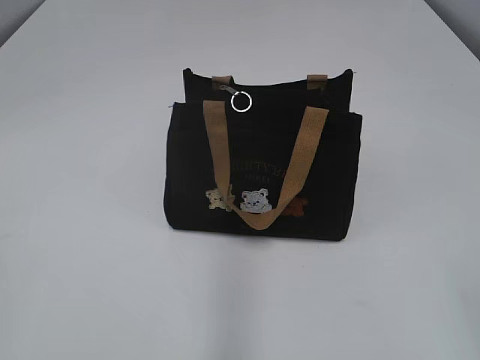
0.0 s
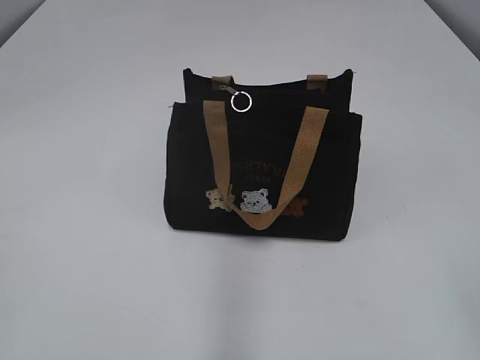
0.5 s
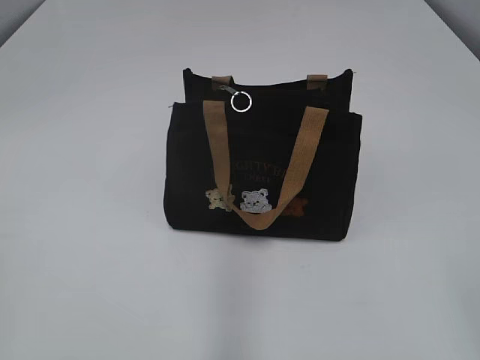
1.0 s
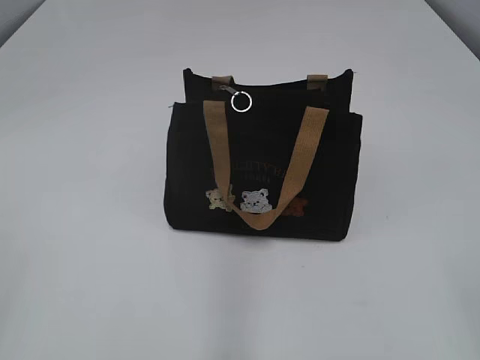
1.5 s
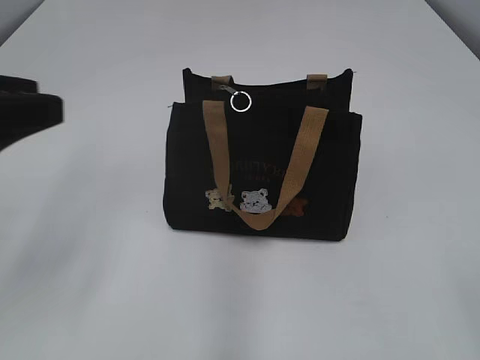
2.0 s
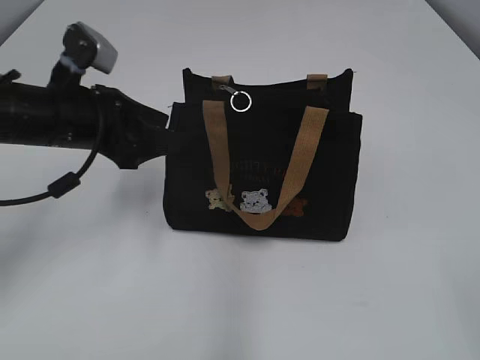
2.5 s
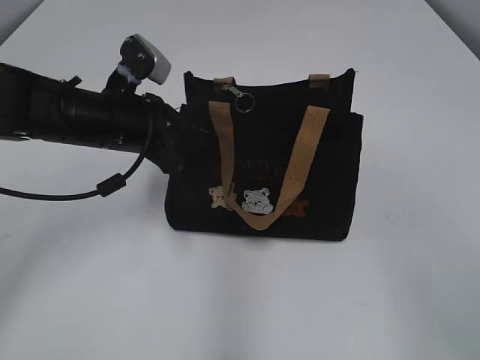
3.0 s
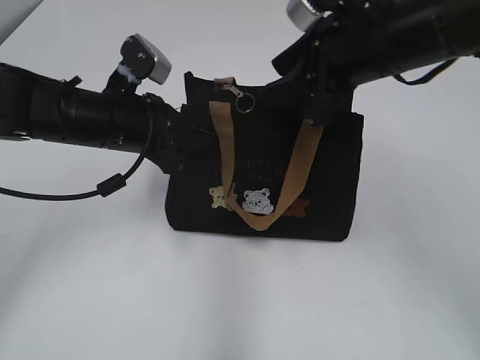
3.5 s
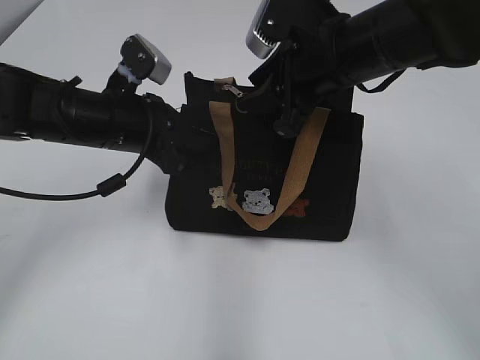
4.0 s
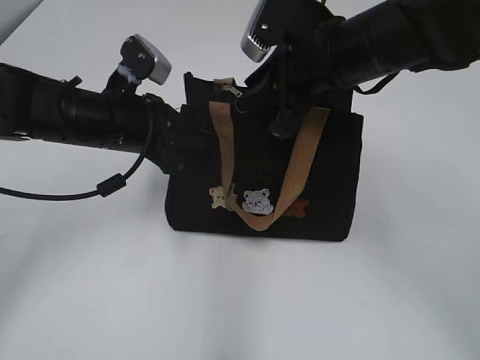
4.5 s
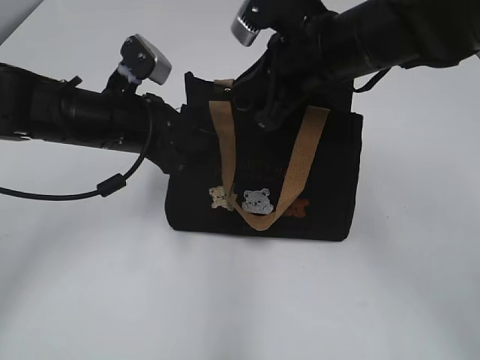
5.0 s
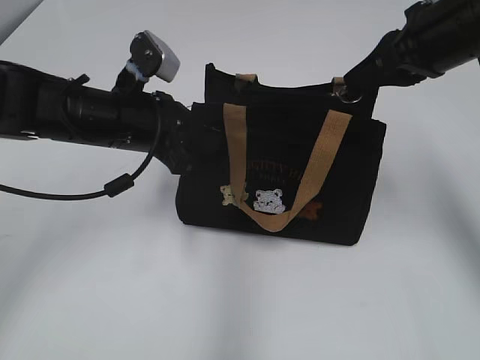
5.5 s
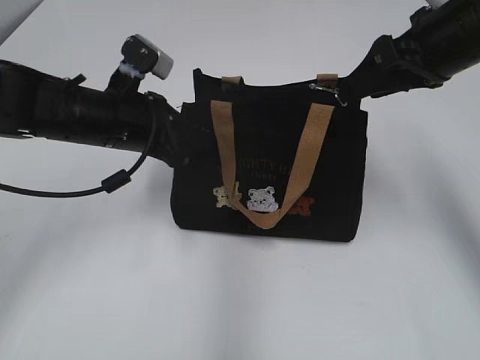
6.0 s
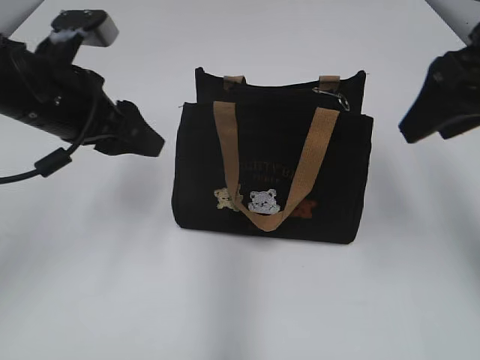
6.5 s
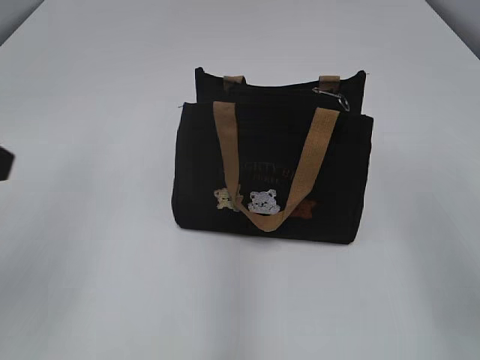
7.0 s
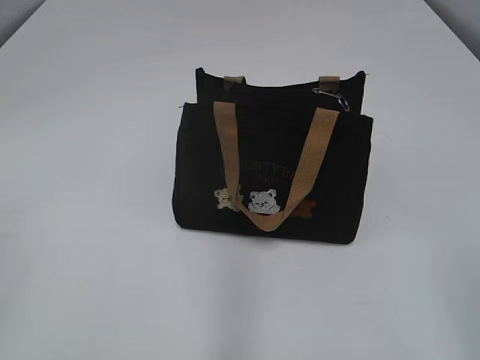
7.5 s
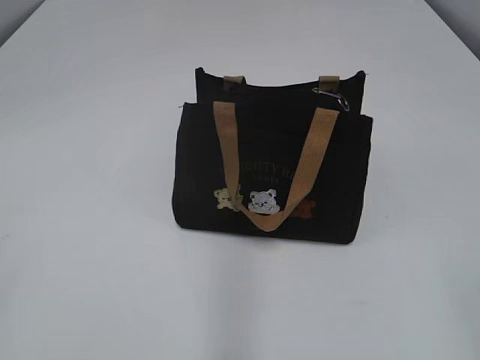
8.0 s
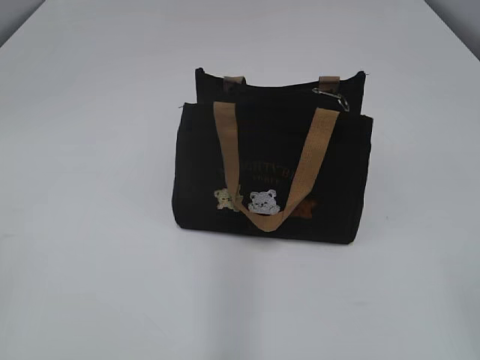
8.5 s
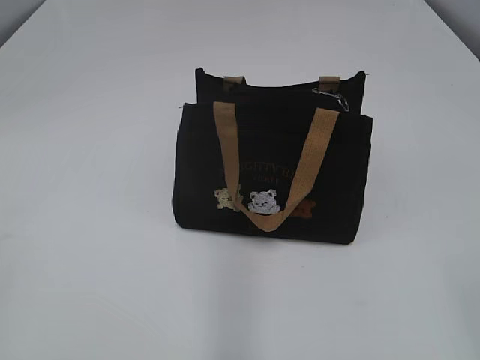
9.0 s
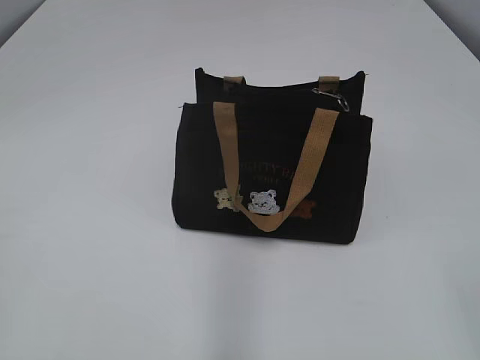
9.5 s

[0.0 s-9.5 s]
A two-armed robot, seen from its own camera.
Step, 0.0 to 5.5 s: Pull open the zipper with your right hand.
2.0 to 4.0 s: The right gripper shifts approximately 40 cm forward and to the left; the left gripper moves forward, downward and to the right, some 25 cm, and closes.
4.0 to 5.5 s: The right gripper goes about 10 cm to the right, and closes its fingers.
5.5 to 7.5 s: The left gripper is displaced backward, to the left and upward by roughly 35 cm, and opens up, while the right gripper goes about 30 cm backward, and opens.

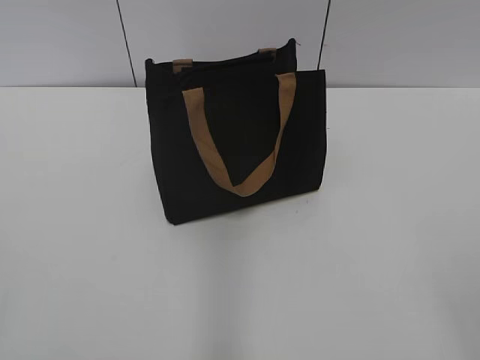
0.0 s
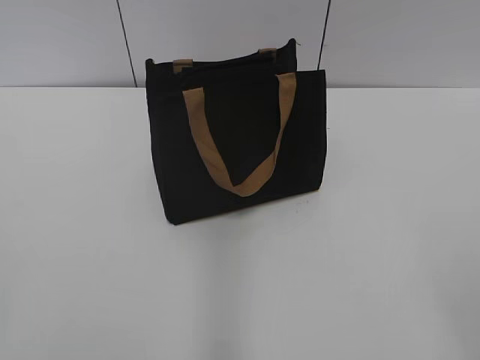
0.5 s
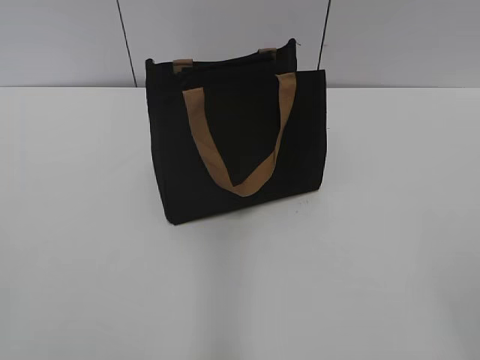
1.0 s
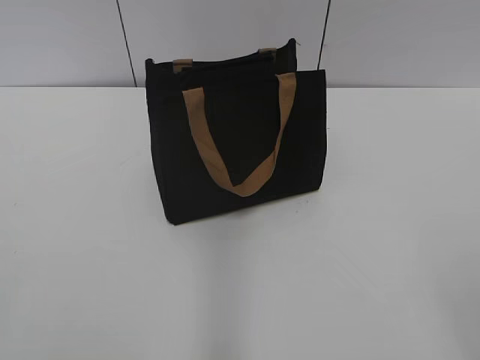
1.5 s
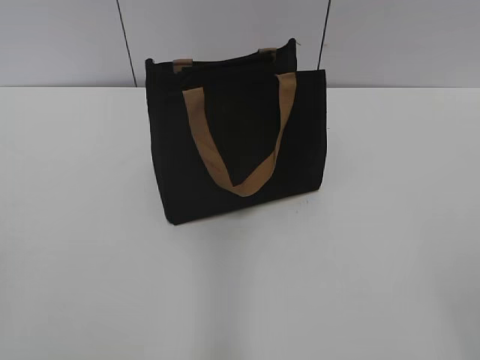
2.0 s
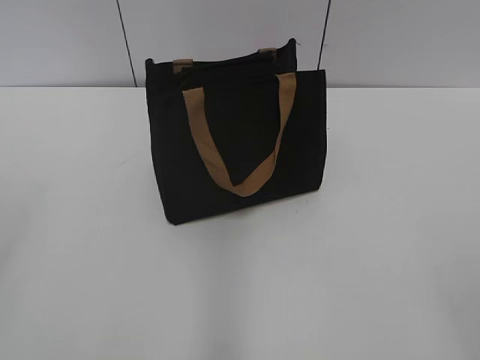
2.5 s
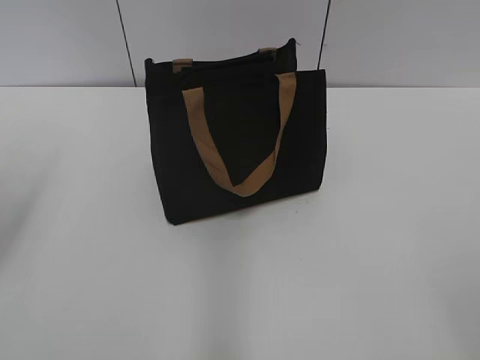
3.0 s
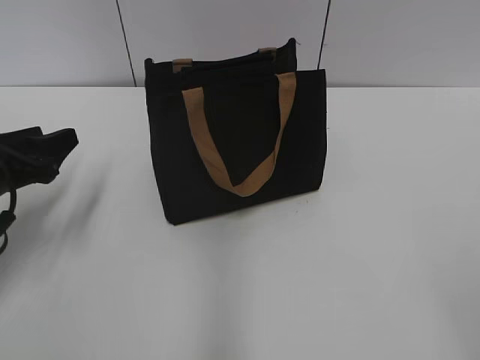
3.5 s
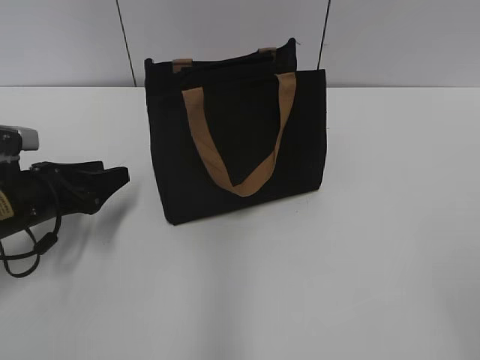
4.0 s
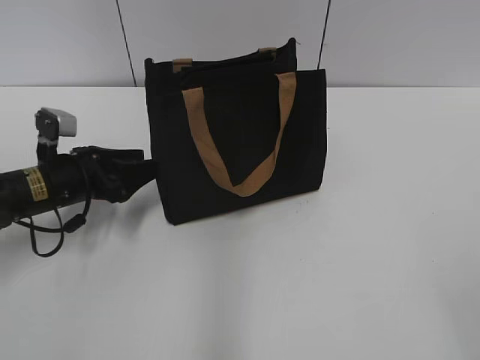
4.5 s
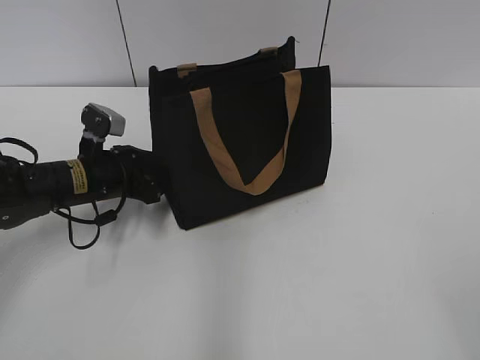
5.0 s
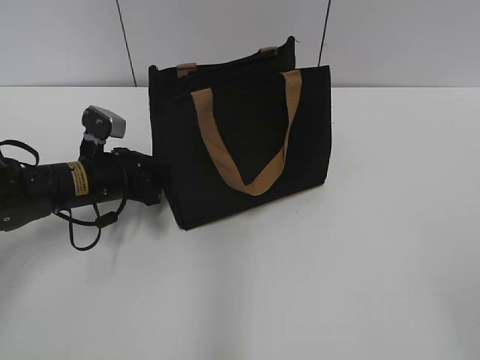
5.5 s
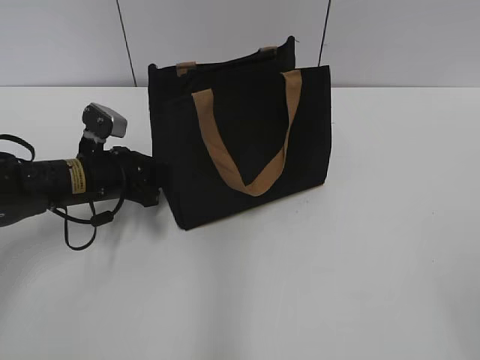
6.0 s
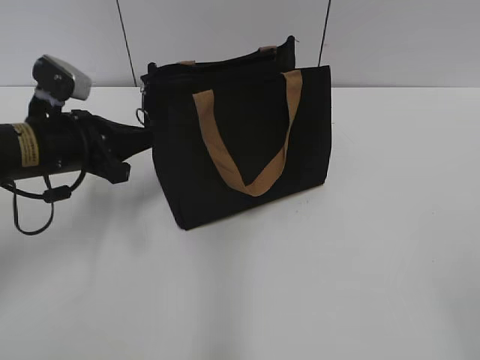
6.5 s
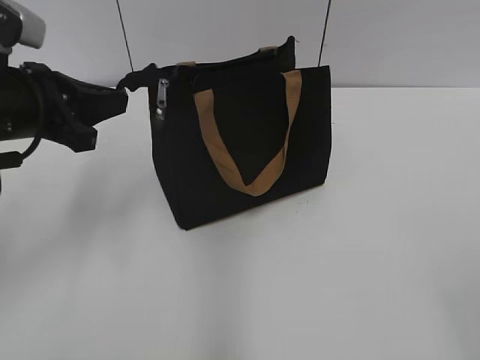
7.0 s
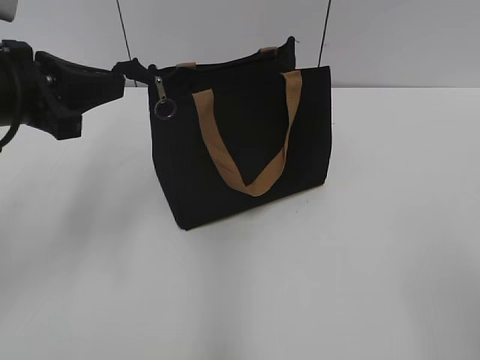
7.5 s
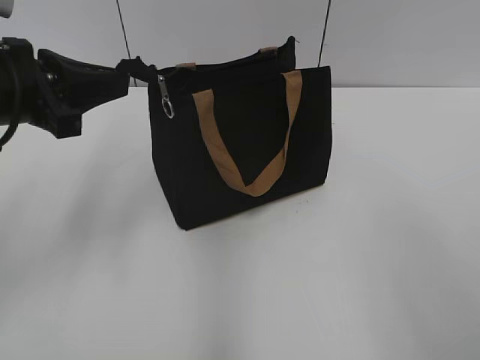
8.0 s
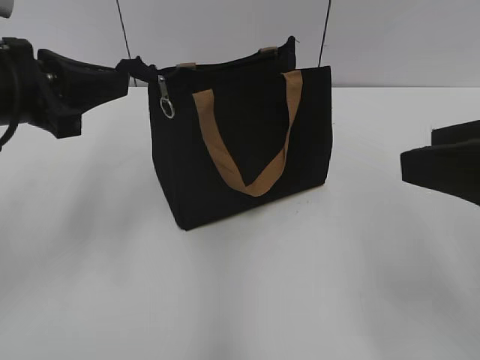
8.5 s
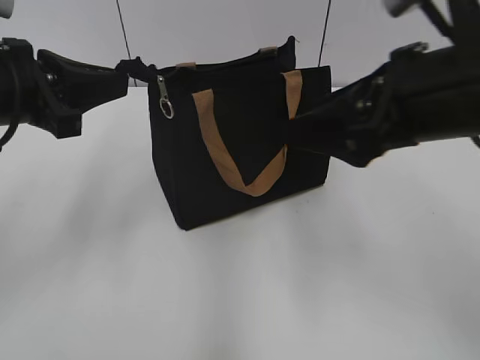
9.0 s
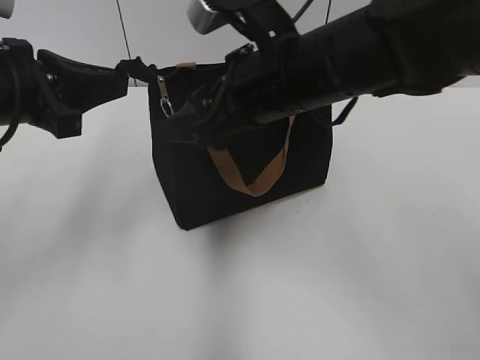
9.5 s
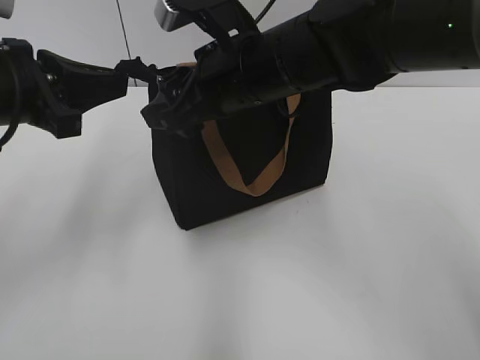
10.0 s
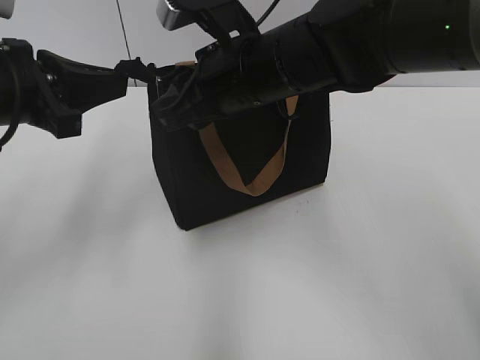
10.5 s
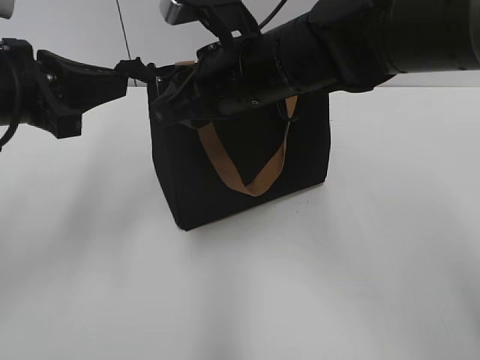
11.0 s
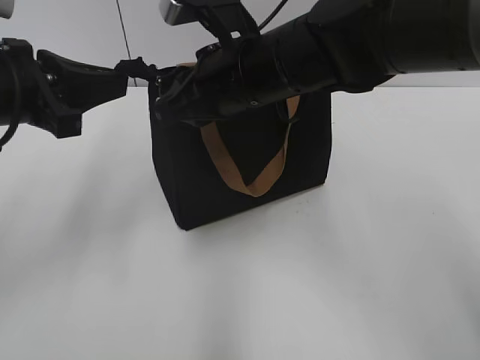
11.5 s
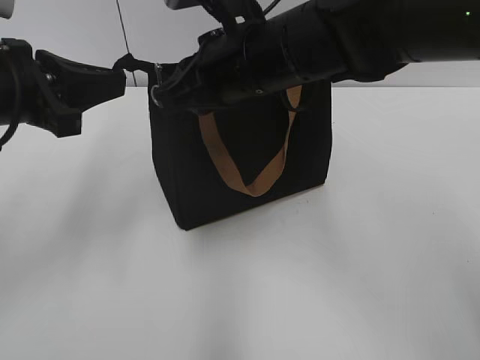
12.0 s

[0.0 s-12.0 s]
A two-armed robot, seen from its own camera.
2.0 to 4.0 s: The left gripper shifts about 35 cm forward and downward.
4.0 to 6.0 s: The left gripper is displaced to the right by approximately 5 cm, and closes up.
6.0 to 8.0 s: The right gripper shifts approximately 5 cm forward; the left gripper travels upward and backward by approximately 20 cm.
8.0 to 10.0 s: The right gripper goes some 35 cm forward and to the left.
10.0 to 12.0 s: The right gripper closes.

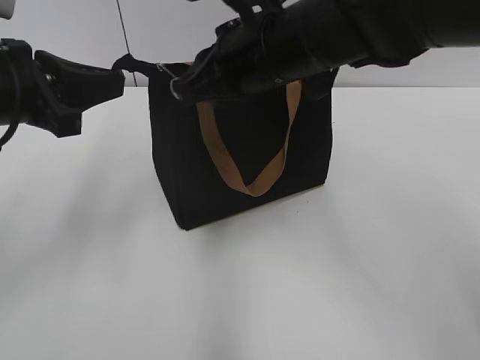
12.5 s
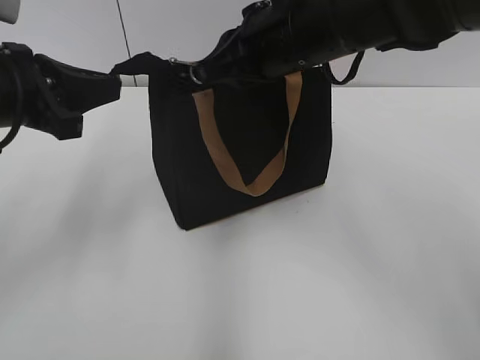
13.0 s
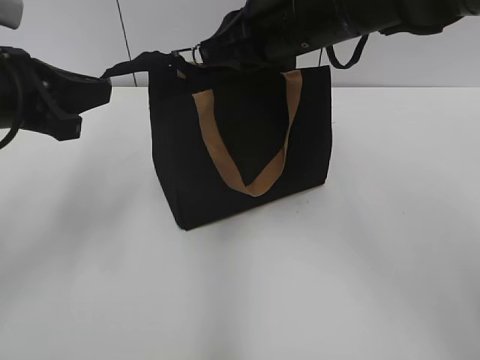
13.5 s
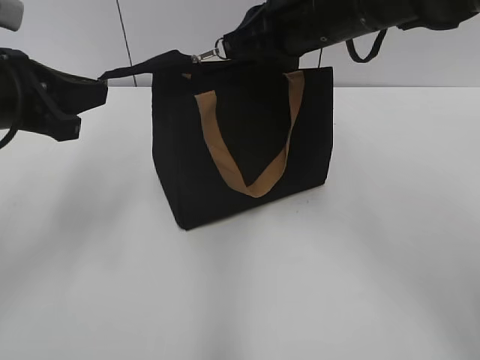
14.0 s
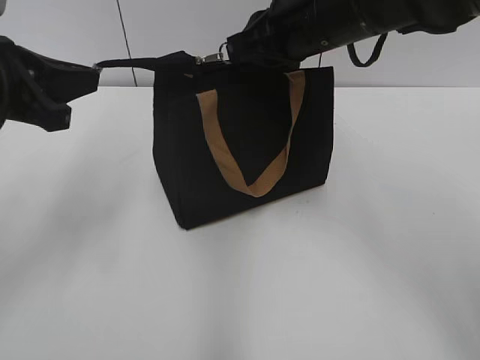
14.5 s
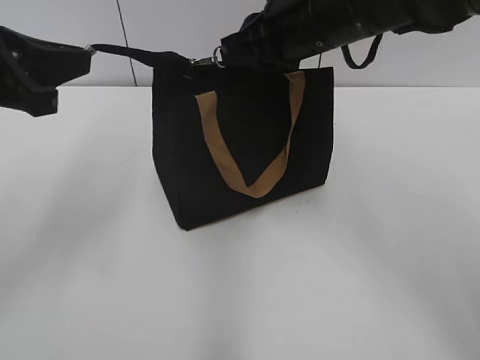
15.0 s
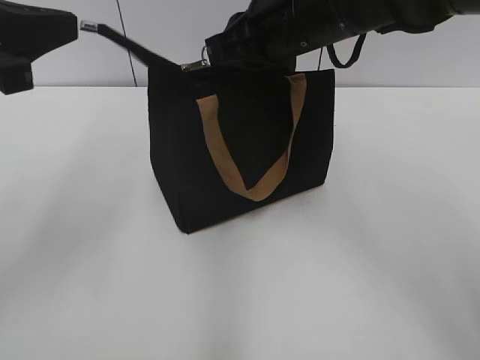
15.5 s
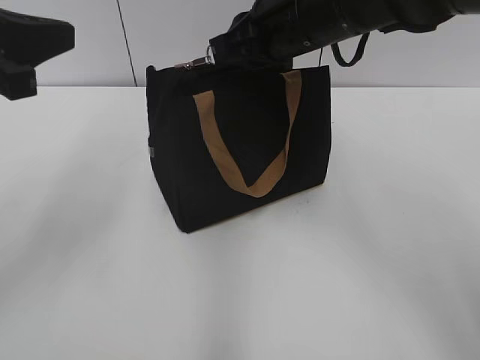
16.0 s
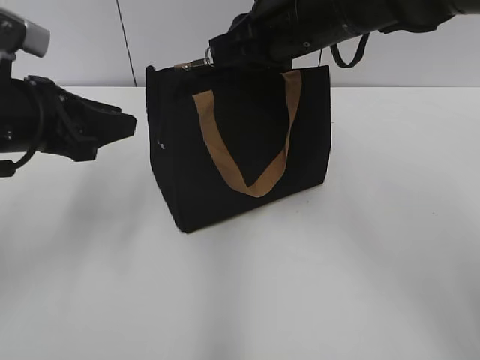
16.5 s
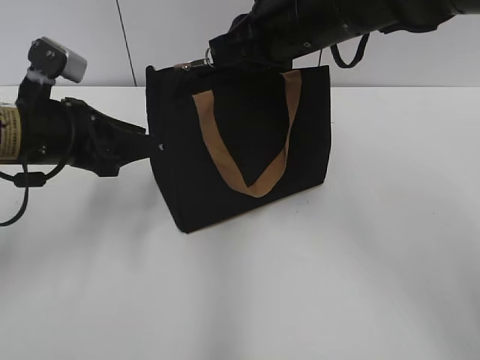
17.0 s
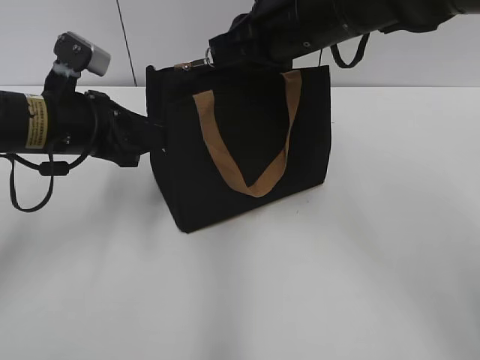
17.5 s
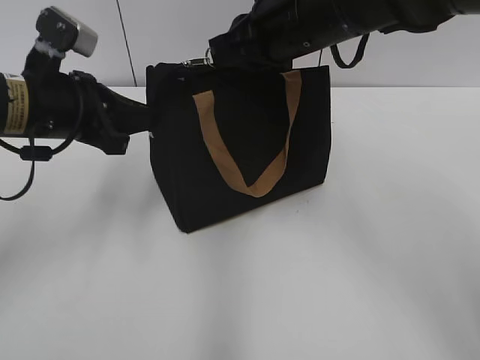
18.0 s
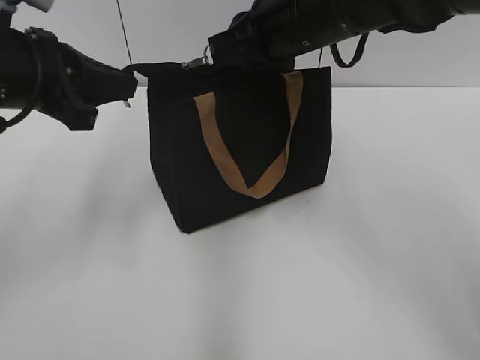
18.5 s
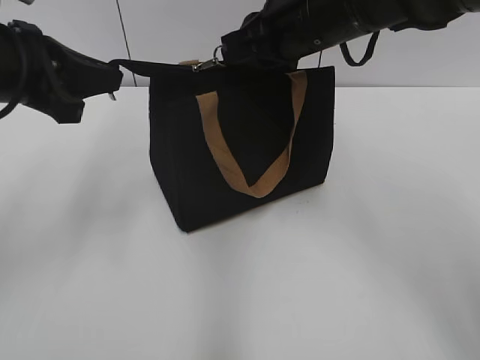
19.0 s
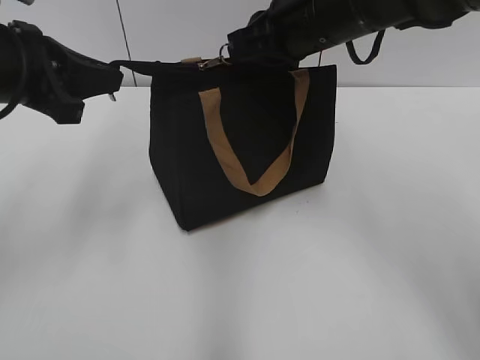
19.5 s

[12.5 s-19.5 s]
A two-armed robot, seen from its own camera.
12.5 to 14.5 s: The right gripper shifts some 5 cm to the right.
14.5 to 16.0 s: There are only small adjustments of the grippers.
16.0 to 17.5 s: The left gripper is displaced downward and forward by roughly 15 cm, and opens its fingers.
17.5 to 19.5 s: The left gripper heads upward, covering about 10 cm, and closes its fingers.
